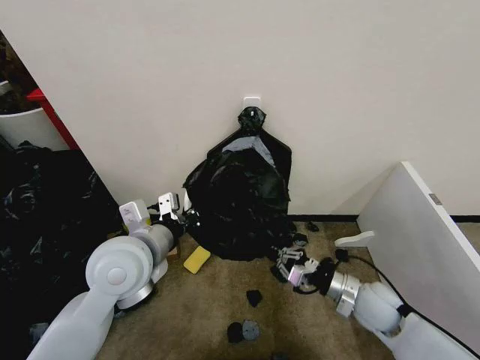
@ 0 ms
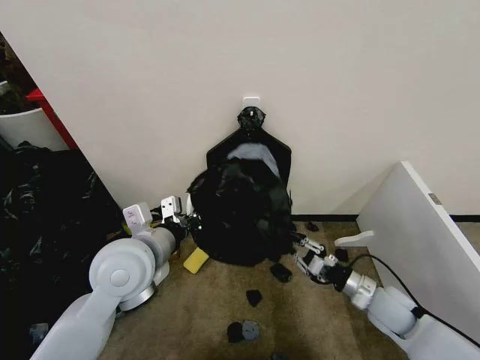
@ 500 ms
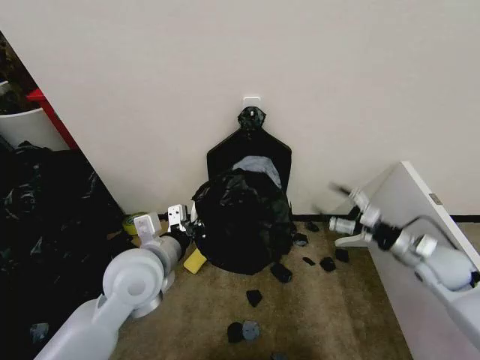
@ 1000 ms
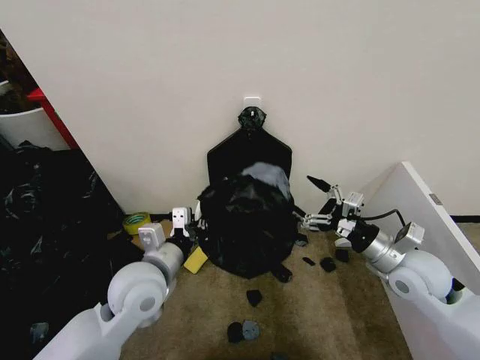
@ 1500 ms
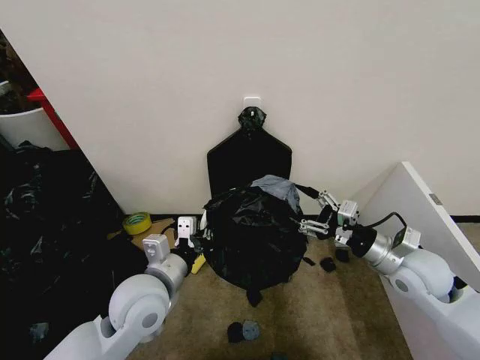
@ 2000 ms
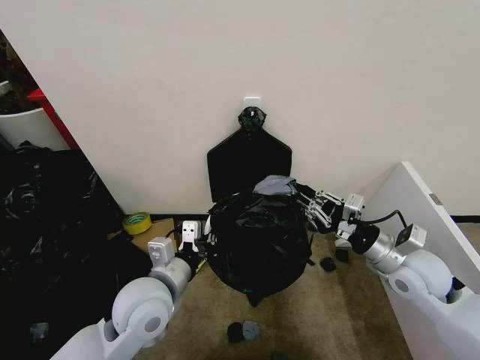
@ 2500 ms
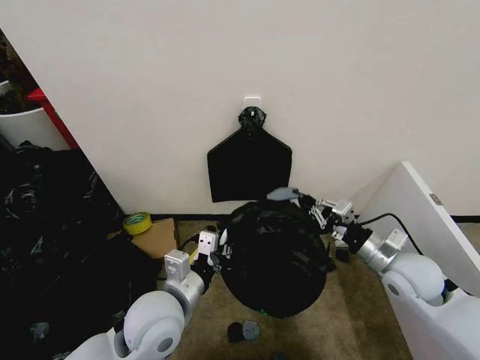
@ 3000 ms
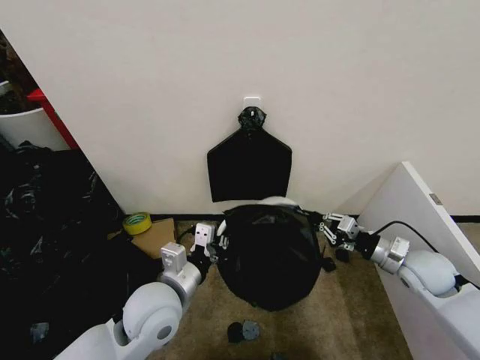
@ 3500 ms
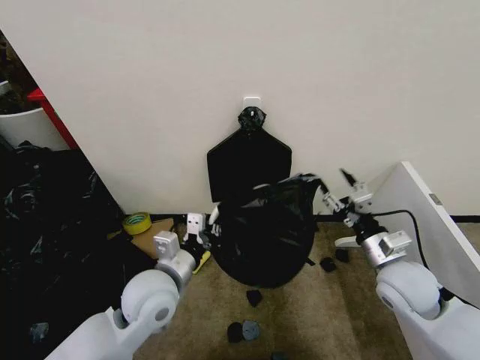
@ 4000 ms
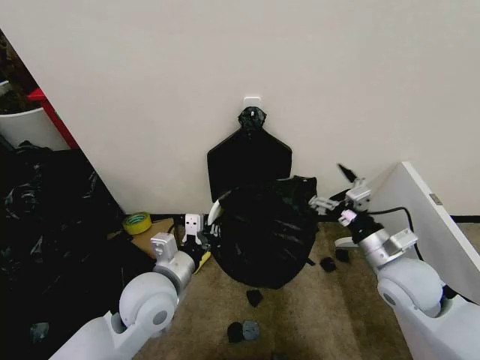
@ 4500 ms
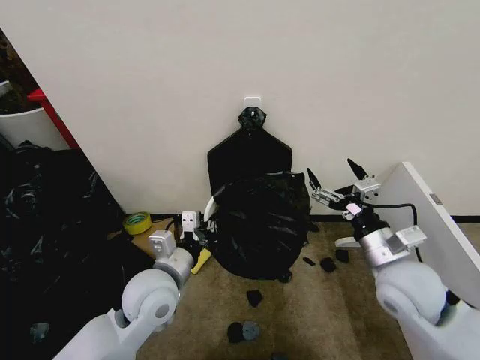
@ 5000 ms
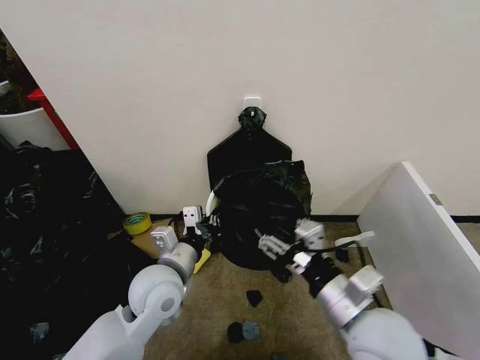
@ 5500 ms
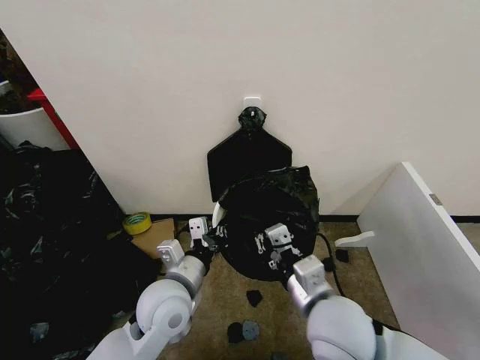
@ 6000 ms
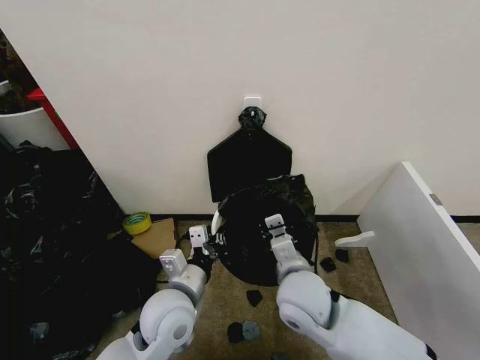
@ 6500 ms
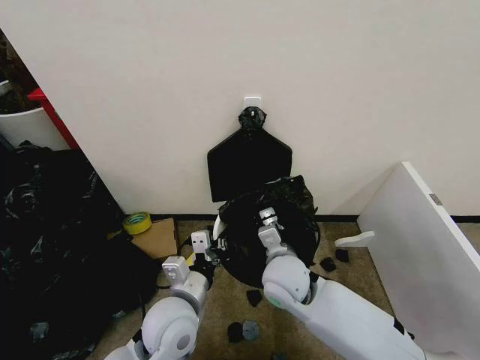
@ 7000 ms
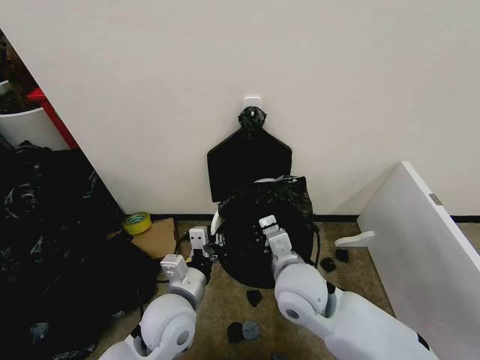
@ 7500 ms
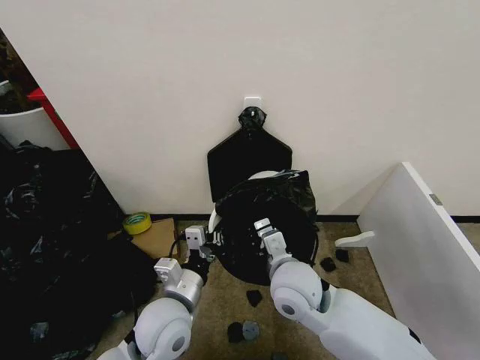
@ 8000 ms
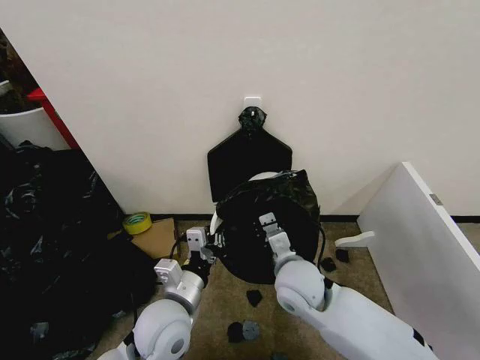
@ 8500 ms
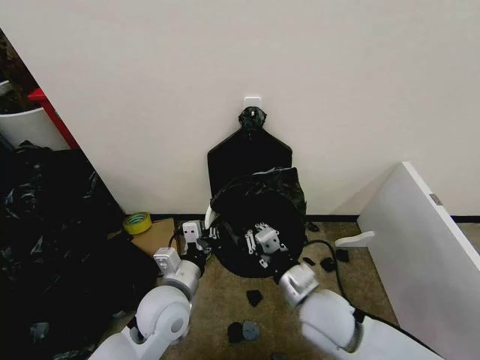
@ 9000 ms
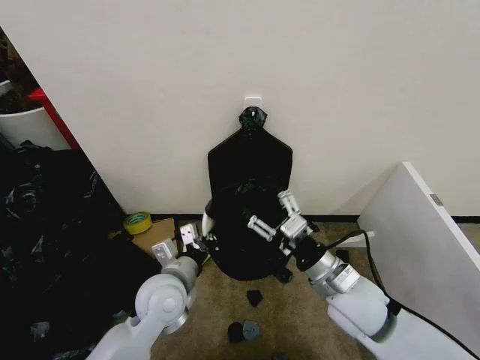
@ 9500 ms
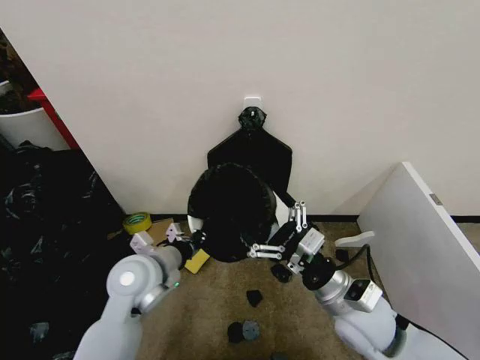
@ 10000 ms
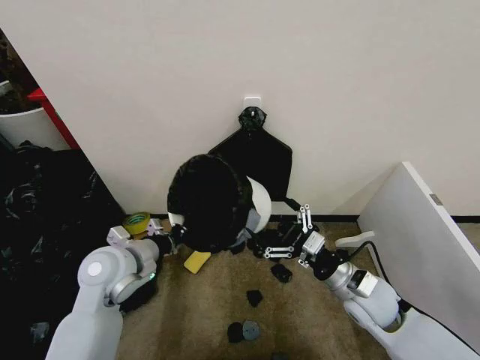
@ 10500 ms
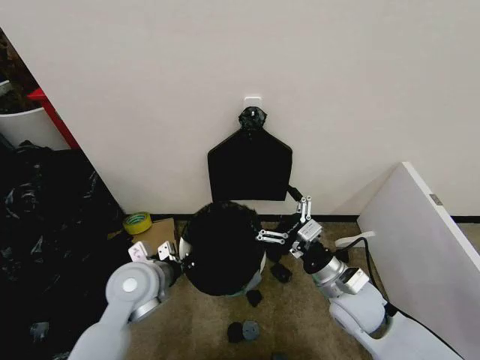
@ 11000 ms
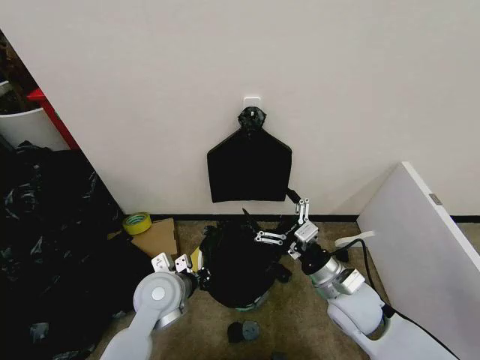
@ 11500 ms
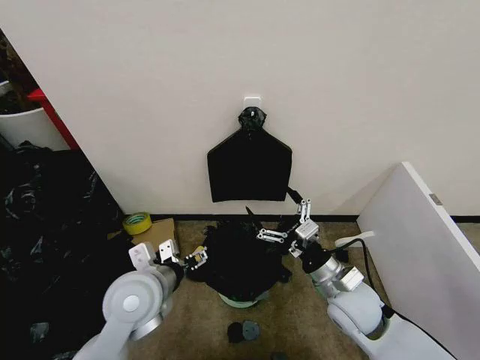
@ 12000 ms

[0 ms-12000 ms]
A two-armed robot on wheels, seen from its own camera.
Task of the whole recording: Place the garbage bag over the trash bin.
0 ms to 2000 ms: The right gripper heads upward, covering some 10 cm, and opens its fingers; the left gripper heads downward, covering approximately 10 cm.
2000 ms to 4000 ms: The right gripper moves approximately 5 cm to the right and comes back, and closes, then reopens.
4000 ms to 6000 ms: The right gripper heads to the left and backward, covering about 20 cm, and closes.
6000 ms to 8000 ms: The right gripper heads forward, covering about 10 cm.
8000 ms to 10000 ms: The left gripper goes roughly 10 cm forward and to the left. The right gripper heads to the right, covering approximately 10 cm, and opens its fingers.
10000 ms to 12000 ms: The left gripper opens. Meanwhile the right gripper shifts by some 5 cm.

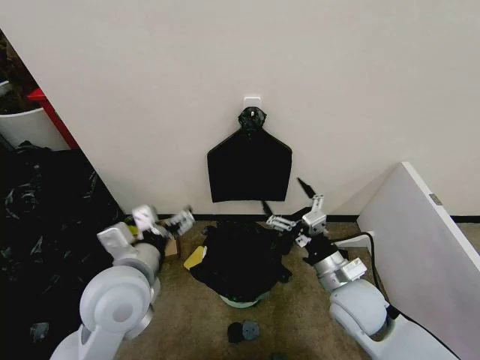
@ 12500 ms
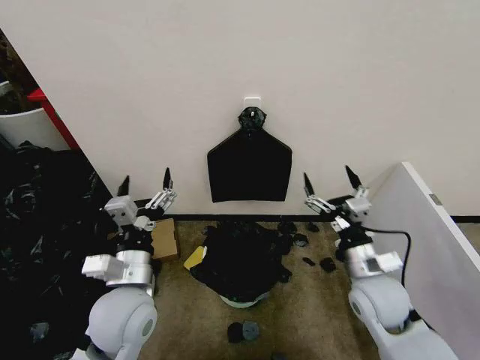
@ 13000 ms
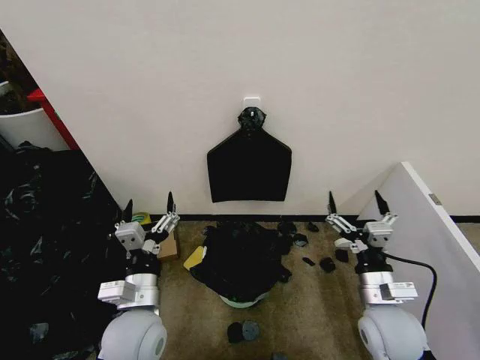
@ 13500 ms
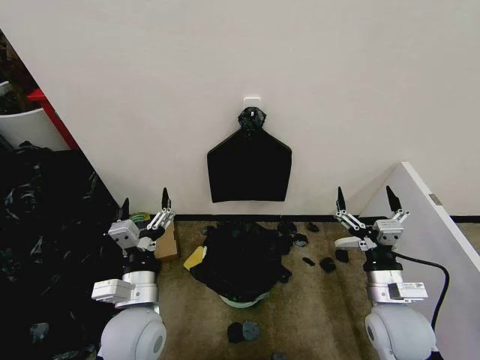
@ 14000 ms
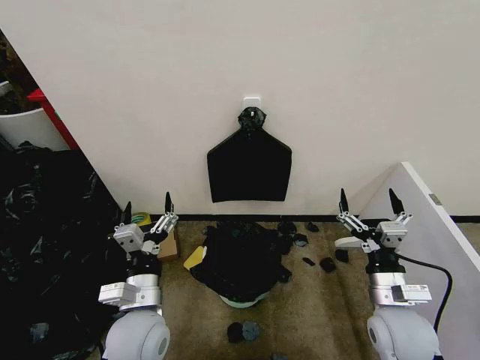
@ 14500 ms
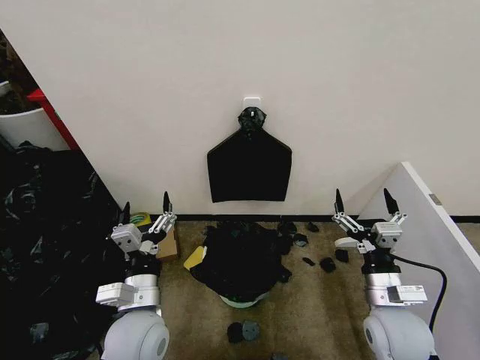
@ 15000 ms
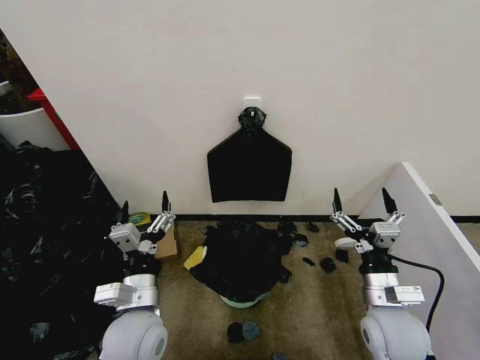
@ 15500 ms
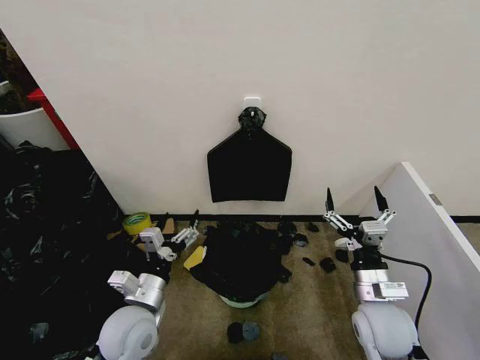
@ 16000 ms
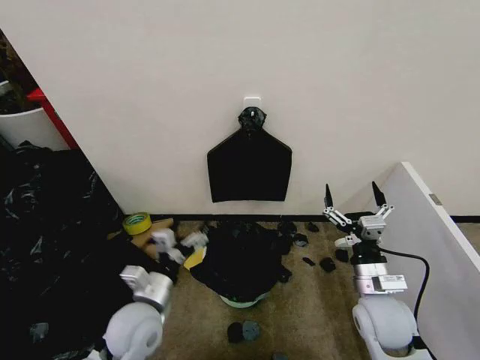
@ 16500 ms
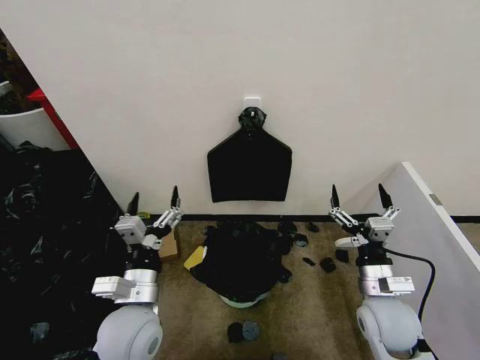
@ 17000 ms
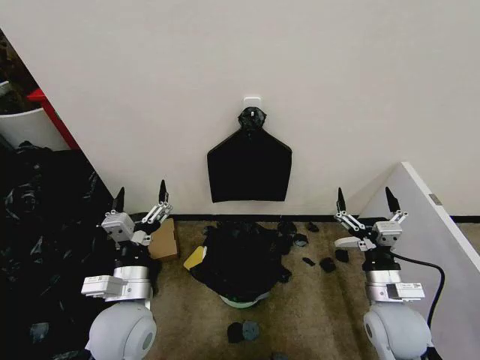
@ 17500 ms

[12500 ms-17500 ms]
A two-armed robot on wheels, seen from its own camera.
Task of the whole recording: Place the garbage bag over the trash bin.
12500 ms to 15000 ms: The left gripper goes approximately 10 cm downward. The right gripper shifts roughly 5 cm to the right.

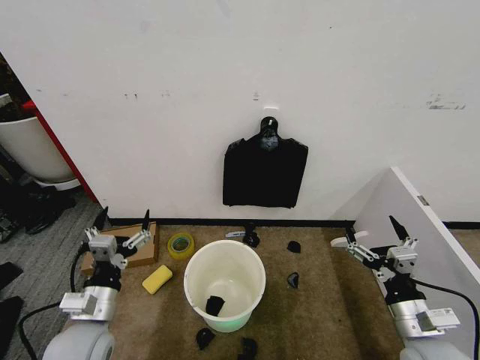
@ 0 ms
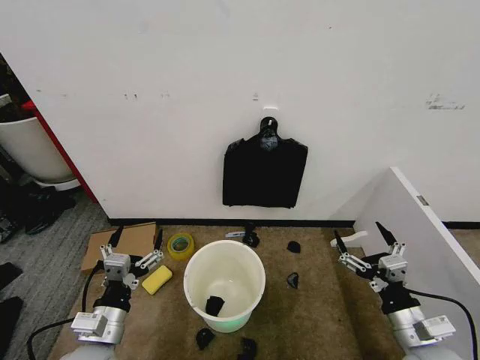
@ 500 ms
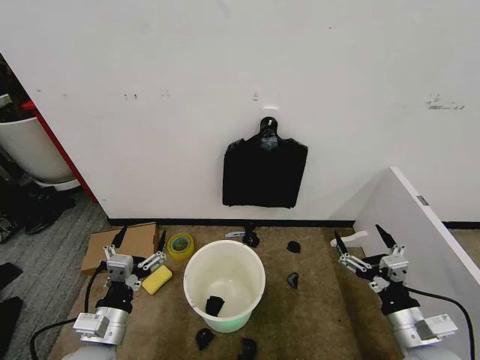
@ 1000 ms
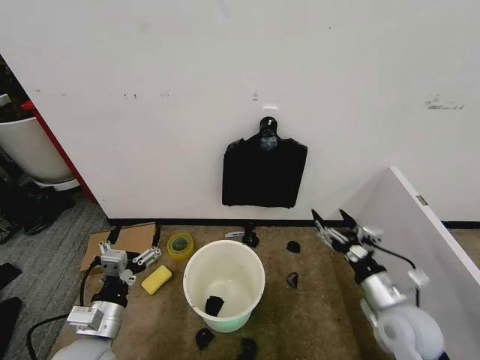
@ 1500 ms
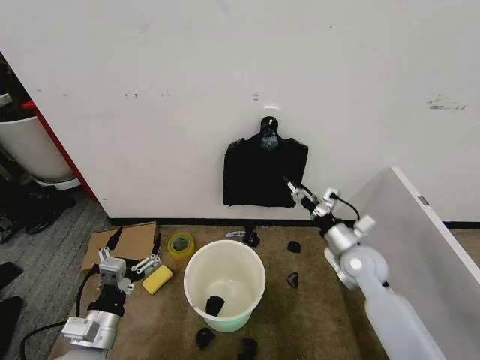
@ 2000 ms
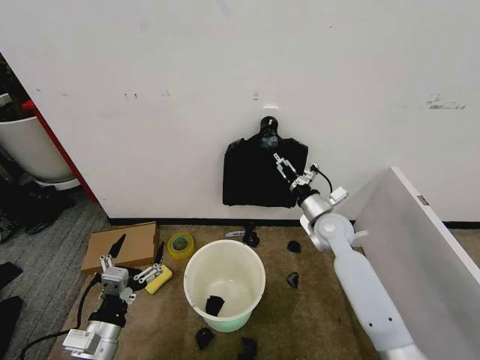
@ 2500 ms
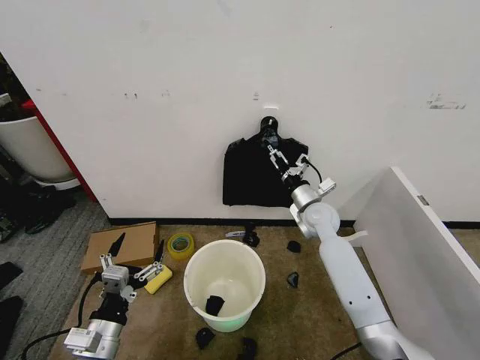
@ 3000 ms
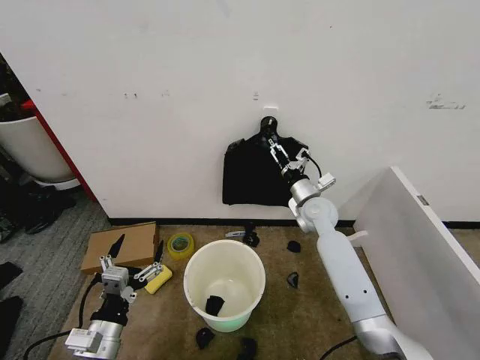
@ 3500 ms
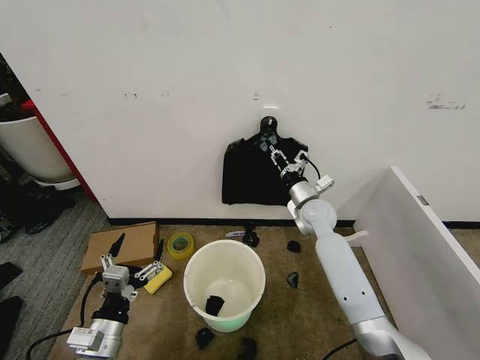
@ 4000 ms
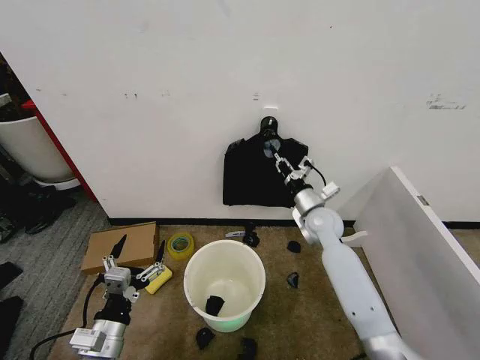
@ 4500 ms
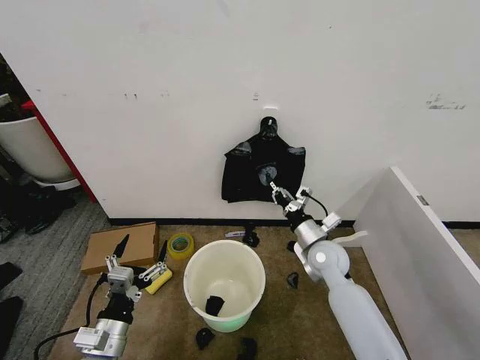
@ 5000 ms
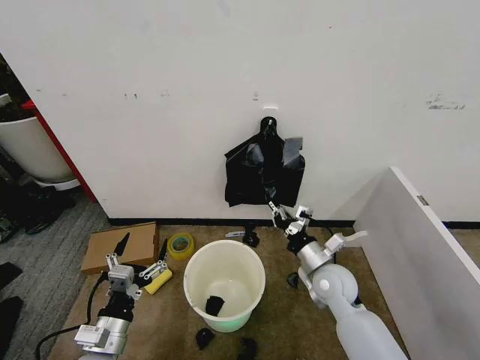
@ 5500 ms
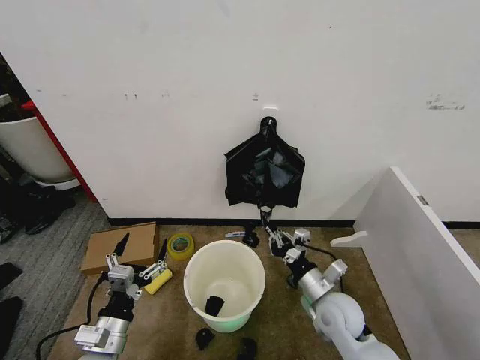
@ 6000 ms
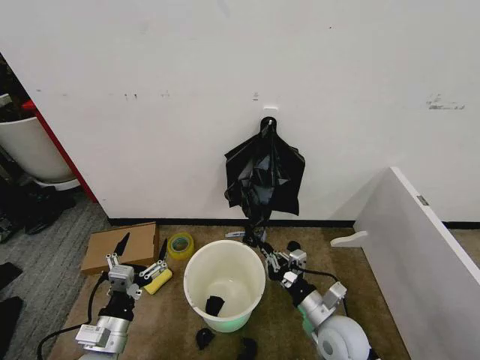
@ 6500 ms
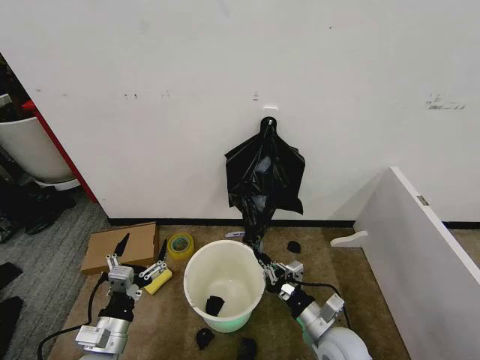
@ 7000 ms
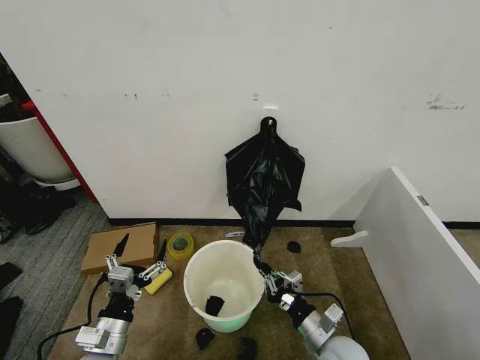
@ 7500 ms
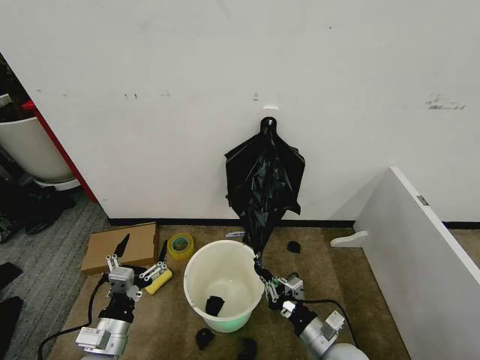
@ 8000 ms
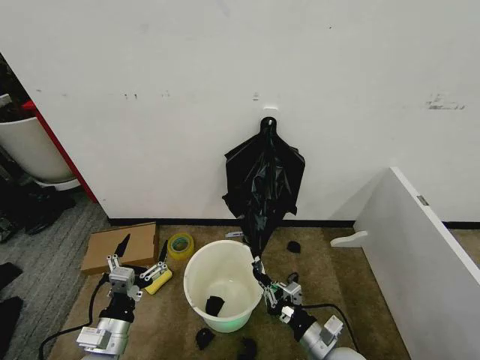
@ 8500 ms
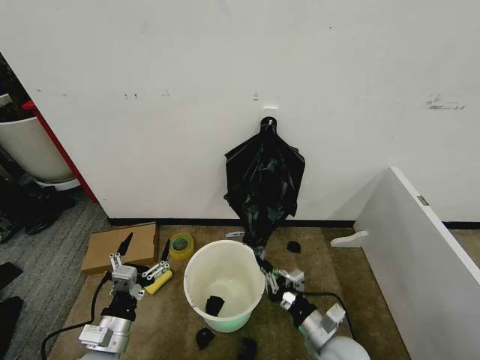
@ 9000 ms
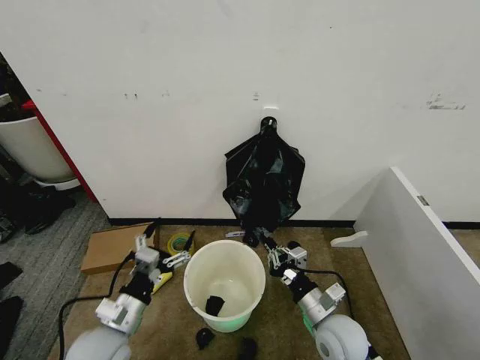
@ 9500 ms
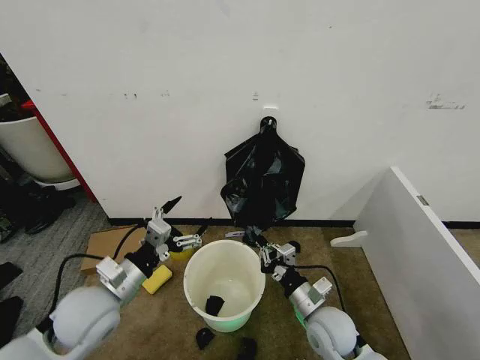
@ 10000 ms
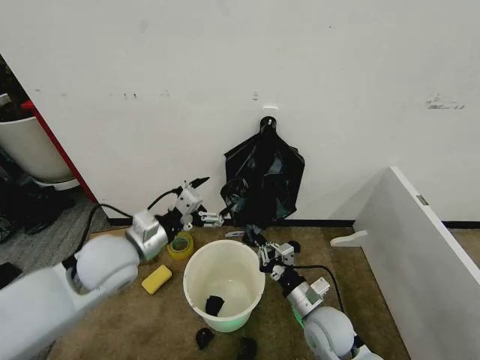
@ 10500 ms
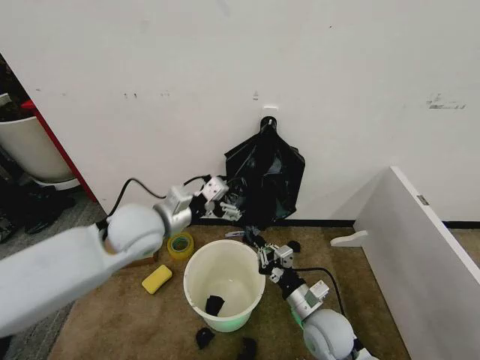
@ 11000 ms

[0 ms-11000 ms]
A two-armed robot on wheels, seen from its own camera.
Task of the whole recording: Place the garbage bag over the trash bin.
2000 ms to 3500 ms: The right gripper moves forward and to the left, some 15 cm.
3500 ms to 5500 ms: The right gripper heads backward, covering about 15 cm, and closes.
5500 ms to 7500 ms: The right gripper heads backward and downward, covering some 15 cm.
7500 ms to 9000 ms: The grippers move only a little.
9000 ms to 11000 ms: The right gripper moves approximately 5 cm. Meanwhile the left gripper heads forward and upward, covering some 30 cm.
